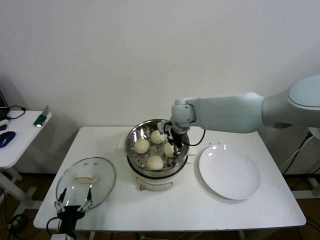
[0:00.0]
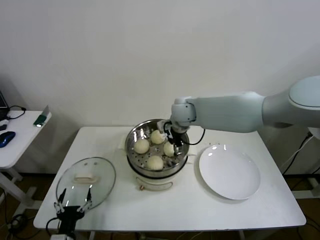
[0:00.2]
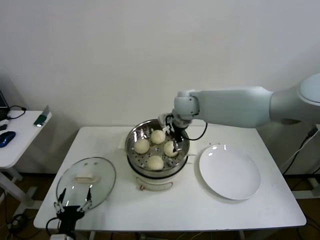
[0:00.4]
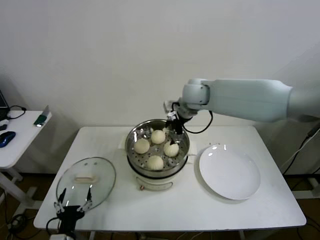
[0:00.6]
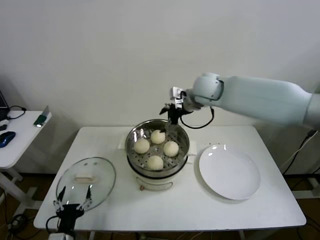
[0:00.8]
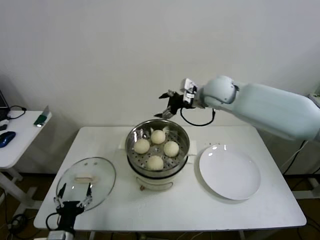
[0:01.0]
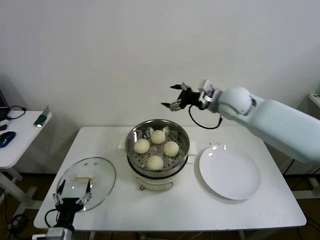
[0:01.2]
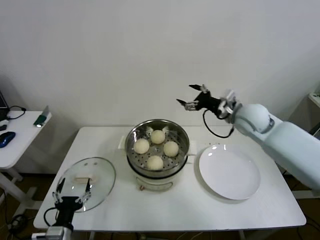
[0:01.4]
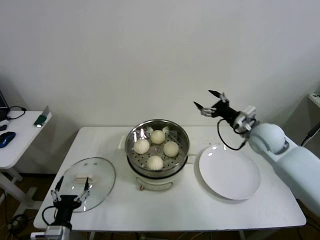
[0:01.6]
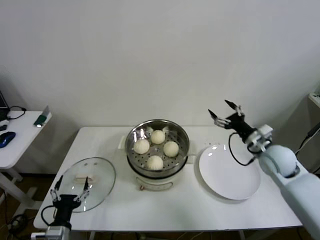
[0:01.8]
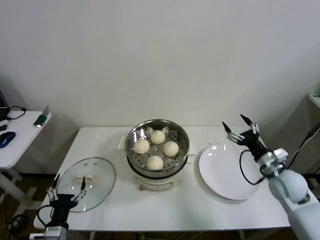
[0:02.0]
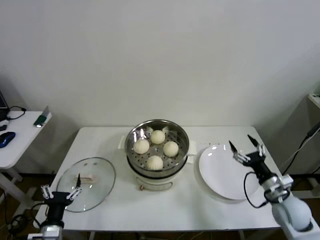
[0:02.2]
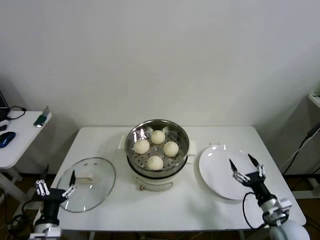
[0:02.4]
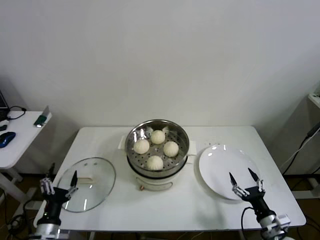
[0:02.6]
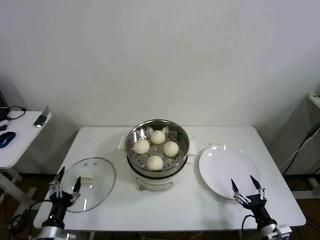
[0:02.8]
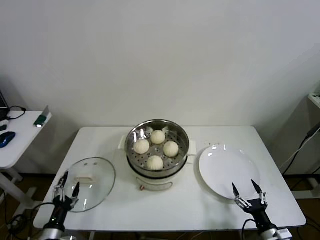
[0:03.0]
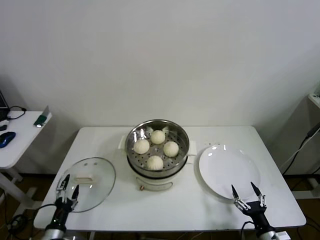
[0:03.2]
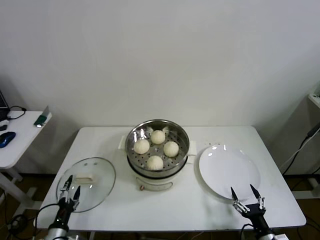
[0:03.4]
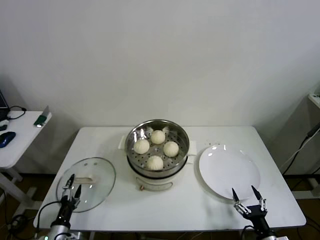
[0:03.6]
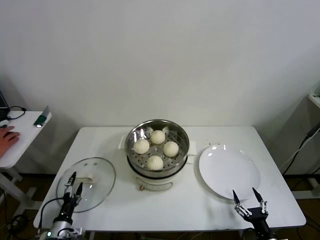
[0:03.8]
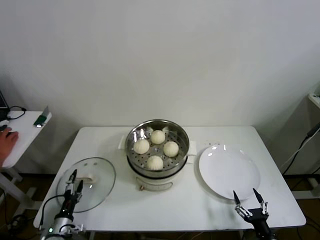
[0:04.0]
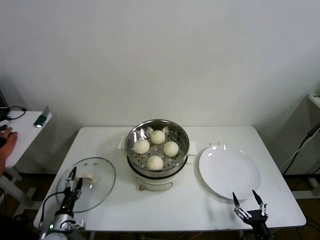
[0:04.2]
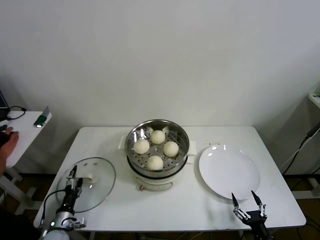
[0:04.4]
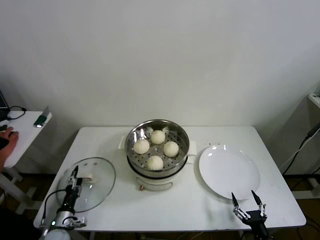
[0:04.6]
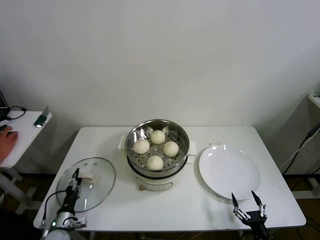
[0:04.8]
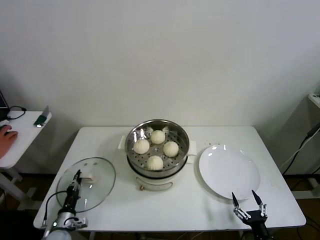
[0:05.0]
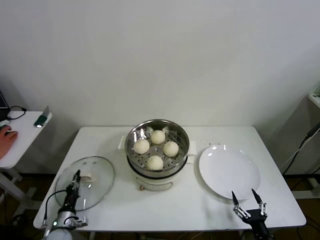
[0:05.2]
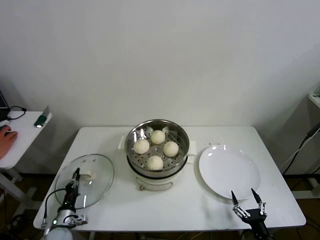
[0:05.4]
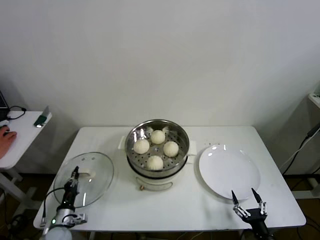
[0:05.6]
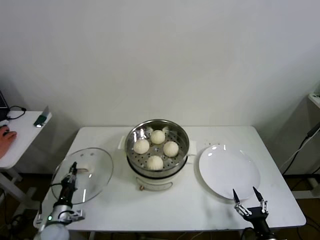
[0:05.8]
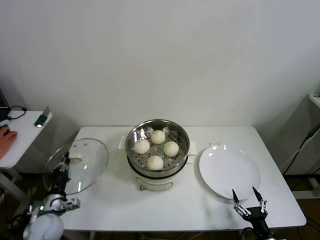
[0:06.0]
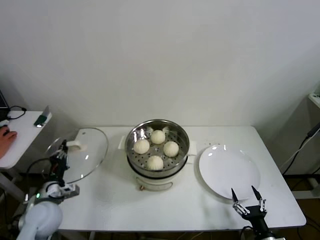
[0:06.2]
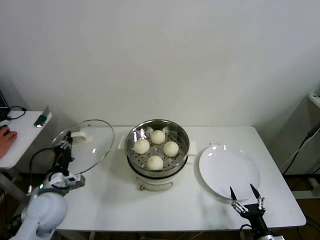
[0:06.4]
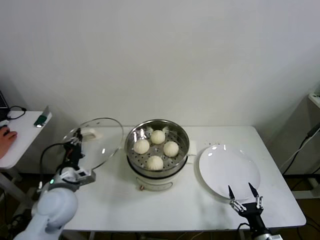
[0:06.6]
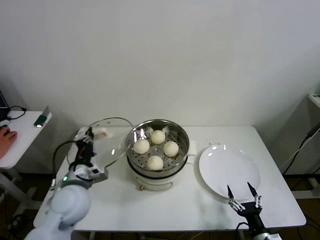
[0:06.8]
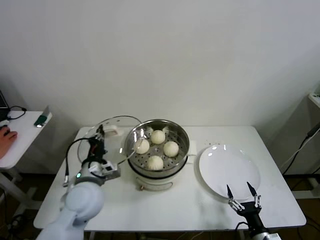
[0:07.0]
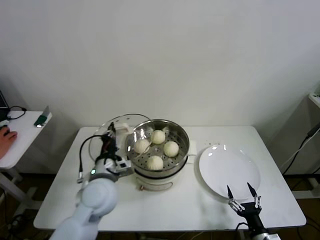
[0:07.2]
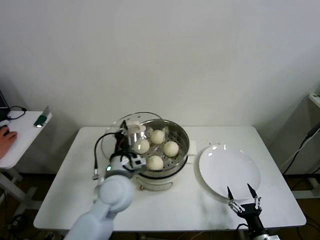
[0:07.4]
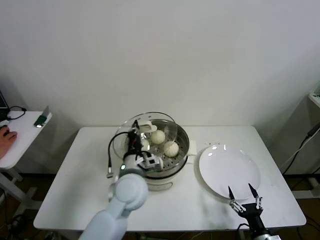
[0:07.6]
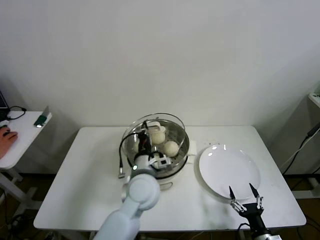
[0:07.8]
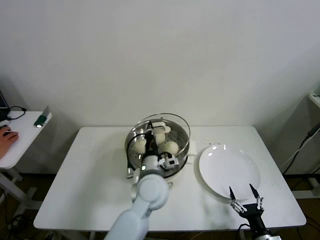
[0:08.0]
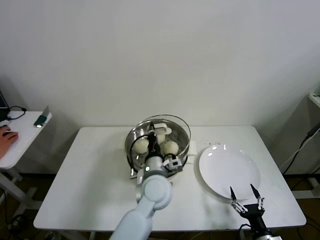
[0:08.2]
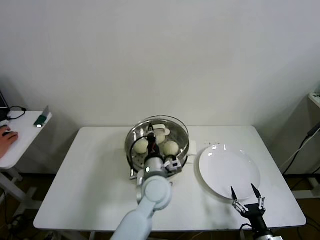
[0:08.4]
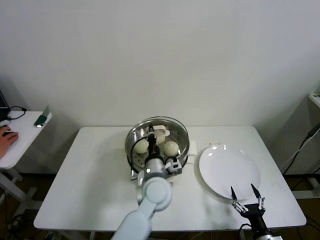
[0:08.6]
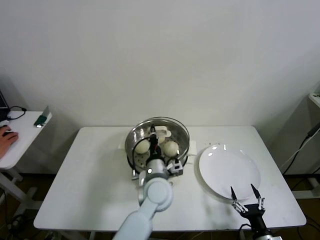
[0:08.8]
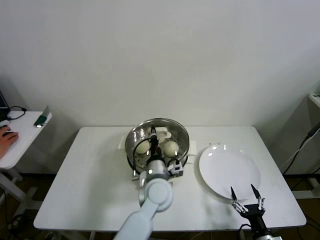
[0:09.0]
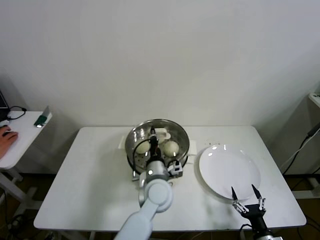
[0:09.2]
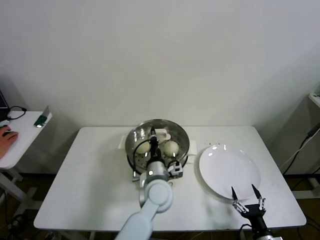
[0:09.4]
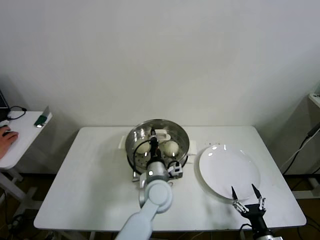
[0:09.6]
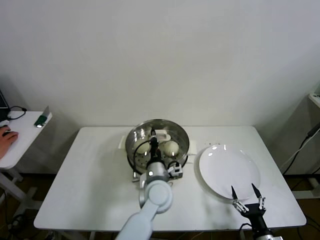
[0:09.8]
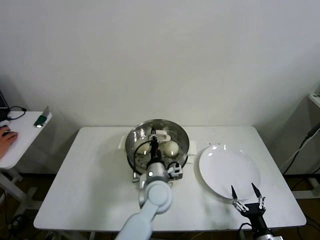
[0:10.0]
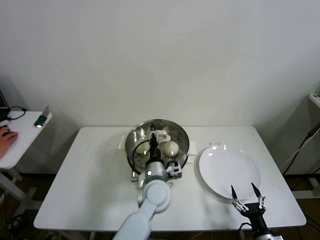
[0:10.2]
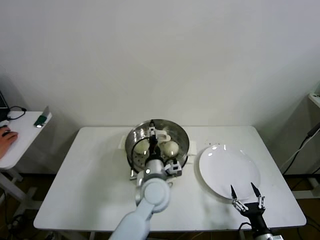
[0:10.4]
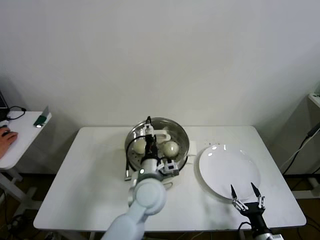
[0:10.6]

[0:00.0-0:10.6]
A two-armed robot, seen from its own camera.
Step, 0:00.4 to 0:05.2: Grasp the pot lid with left gripper.
Step, 0:05.4 to 0:10.2: Place the pot lid on the steamer with left gripper.
0:00.0 to 0:01.6: The right gripper shifts about 25 cm to the right, and opens up.
0:01.6 to 0:03.0: The right gripper shifts approximately 40 cm backward and downward; the left gripper moves to the left, approximately 5 cm.
0:03.0 to 0:04.6: The left gripper shifts some 10 cm forward and downward.
0:04.6 to 0:06.0: The left gripper shifts about 10 cm upward, and closes up.
0:06.0 to 0:07.6: The left gripper travels to the right and upward by approximately 30 cm.
0:07.6 to 0:09.0: The left gripper heads to the right and downward, covering roughly 10 cm.
0:09.0 to 0:10.6: The left gripper opens.

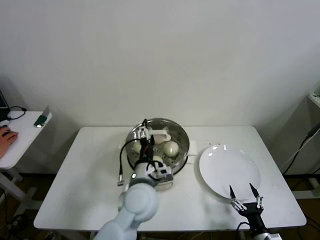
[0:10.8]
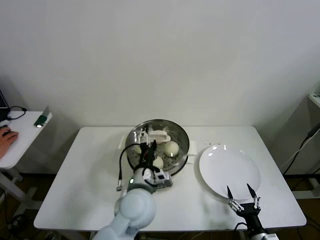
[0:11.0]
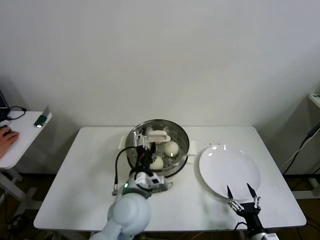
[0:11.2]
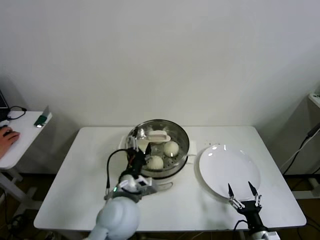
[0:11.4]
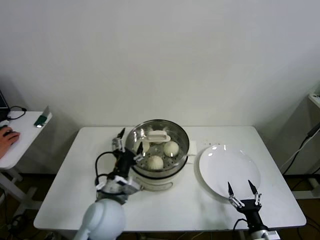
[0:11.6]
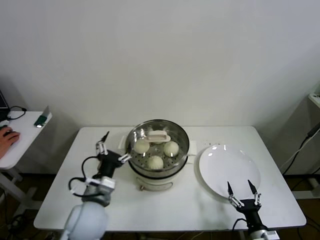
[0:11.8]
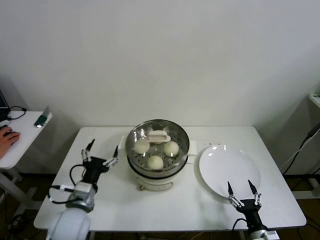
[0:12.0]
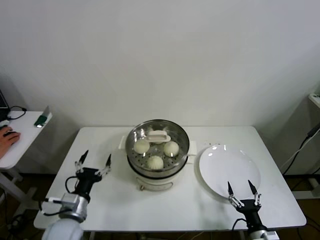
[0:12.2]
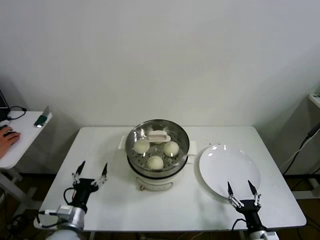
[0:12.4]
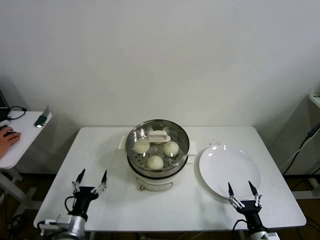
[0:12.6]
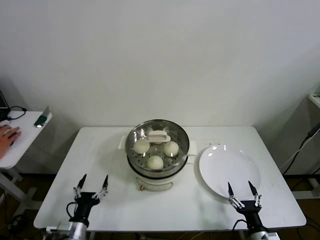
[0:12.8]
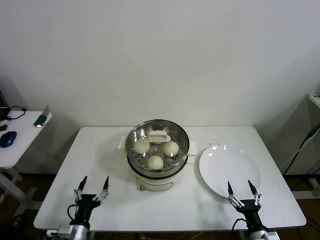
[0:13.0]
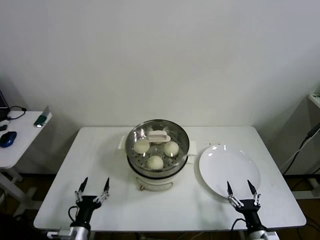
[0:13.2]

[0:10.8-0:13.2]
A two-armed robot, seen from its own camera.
0:10.8 to 0:12.0: The left gripper goes some 15 cm to the left.
0:12.0 to 0:13.2: The left gripper travels downward and backward by some 15 cm.

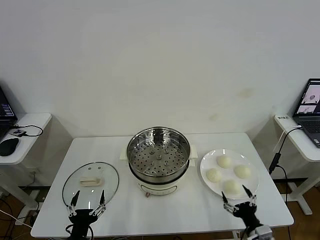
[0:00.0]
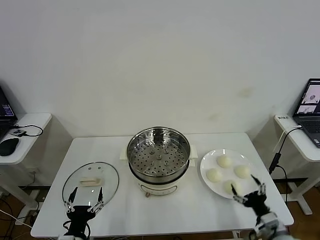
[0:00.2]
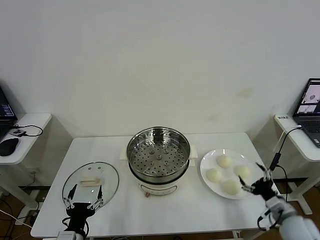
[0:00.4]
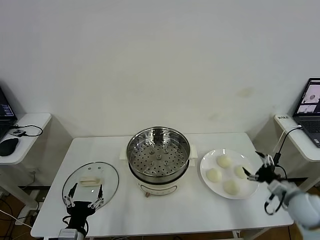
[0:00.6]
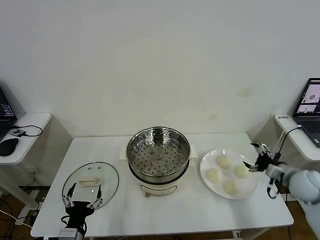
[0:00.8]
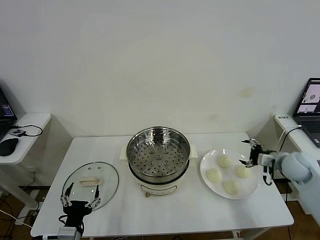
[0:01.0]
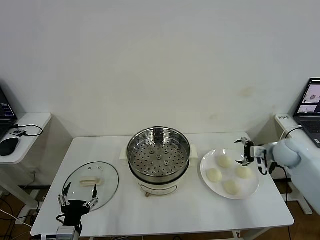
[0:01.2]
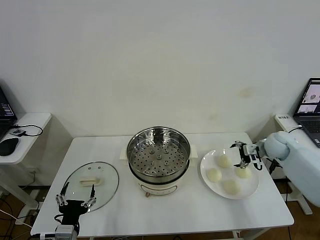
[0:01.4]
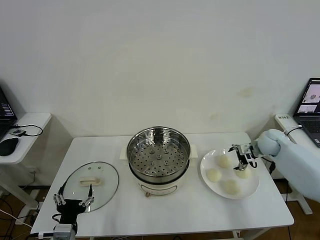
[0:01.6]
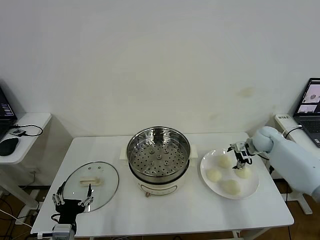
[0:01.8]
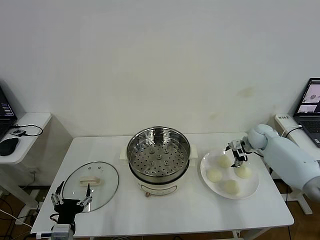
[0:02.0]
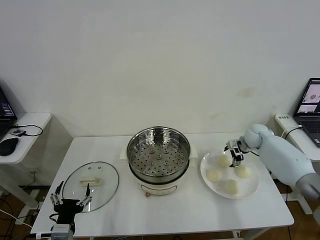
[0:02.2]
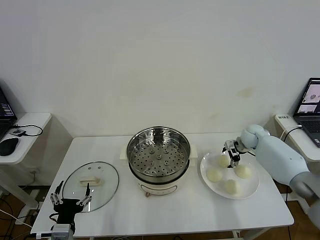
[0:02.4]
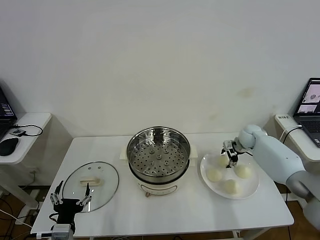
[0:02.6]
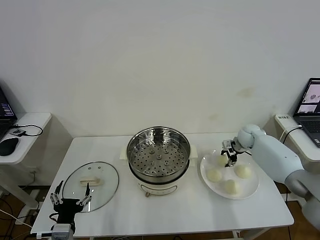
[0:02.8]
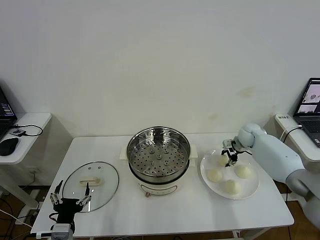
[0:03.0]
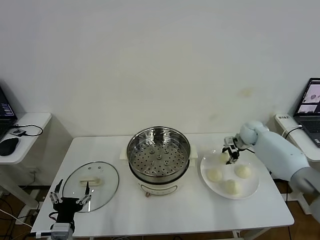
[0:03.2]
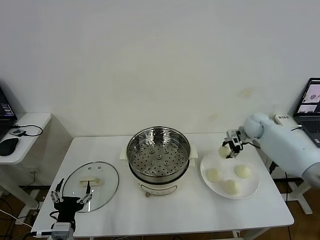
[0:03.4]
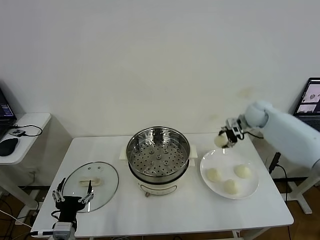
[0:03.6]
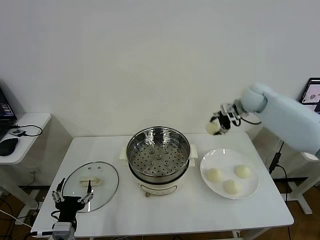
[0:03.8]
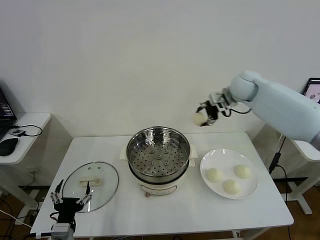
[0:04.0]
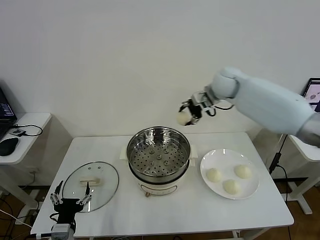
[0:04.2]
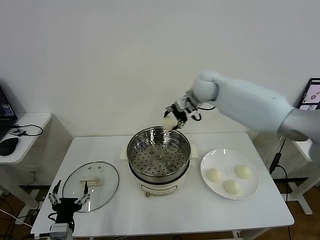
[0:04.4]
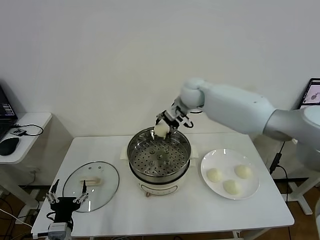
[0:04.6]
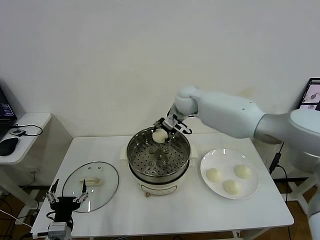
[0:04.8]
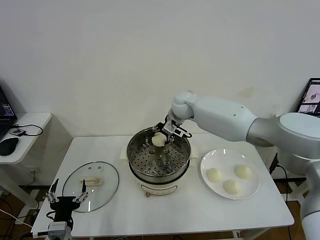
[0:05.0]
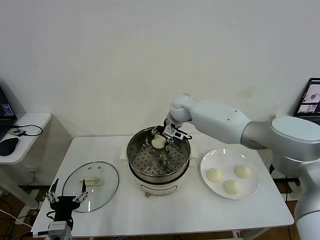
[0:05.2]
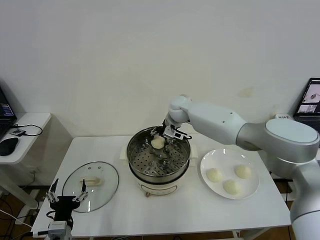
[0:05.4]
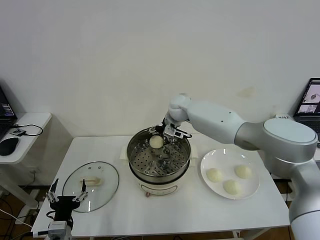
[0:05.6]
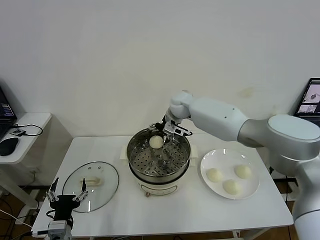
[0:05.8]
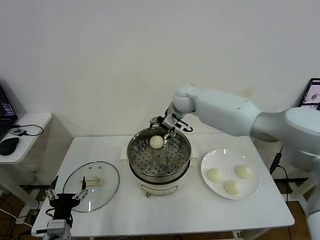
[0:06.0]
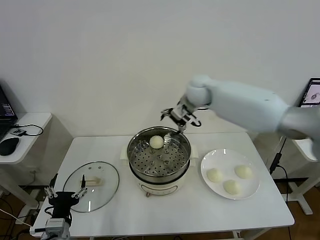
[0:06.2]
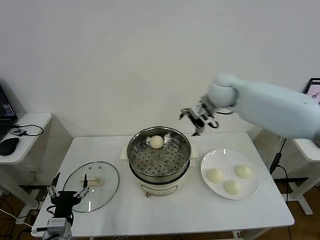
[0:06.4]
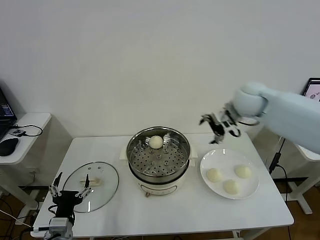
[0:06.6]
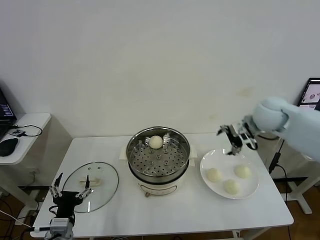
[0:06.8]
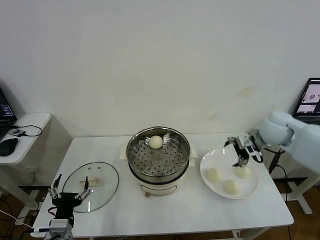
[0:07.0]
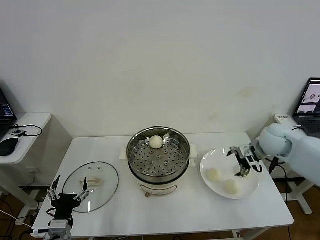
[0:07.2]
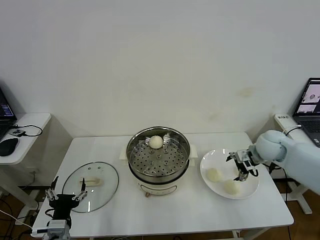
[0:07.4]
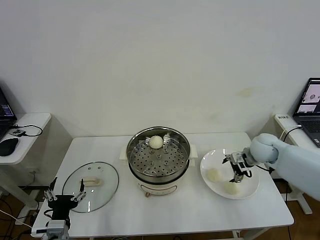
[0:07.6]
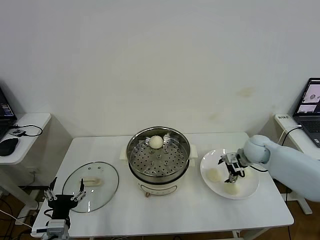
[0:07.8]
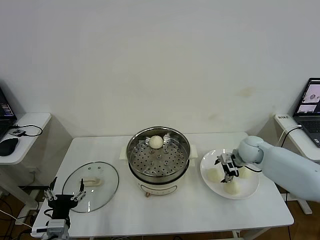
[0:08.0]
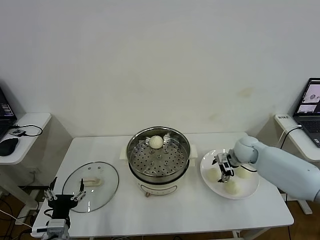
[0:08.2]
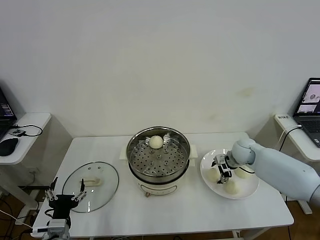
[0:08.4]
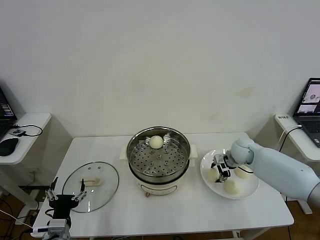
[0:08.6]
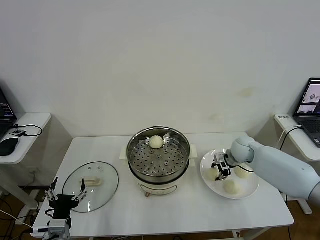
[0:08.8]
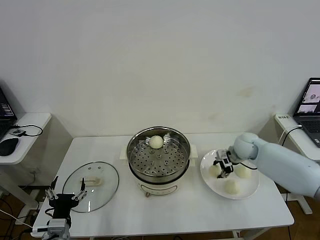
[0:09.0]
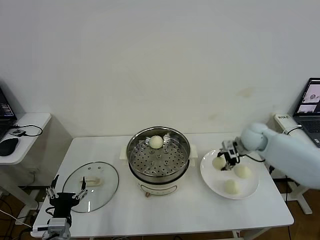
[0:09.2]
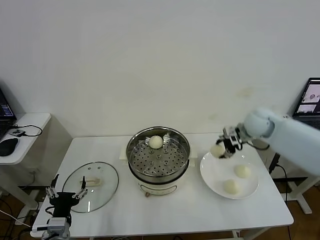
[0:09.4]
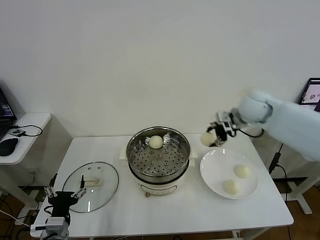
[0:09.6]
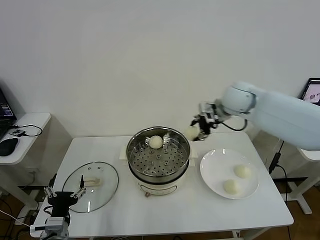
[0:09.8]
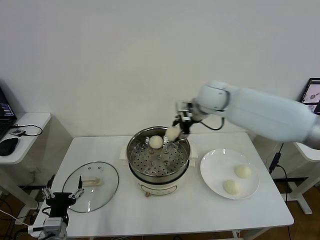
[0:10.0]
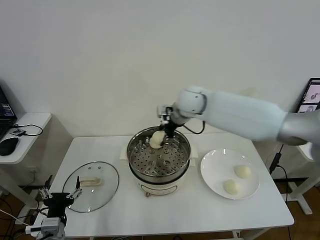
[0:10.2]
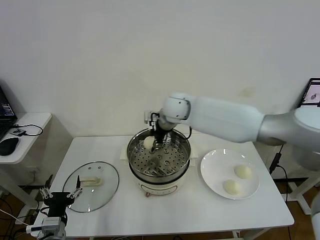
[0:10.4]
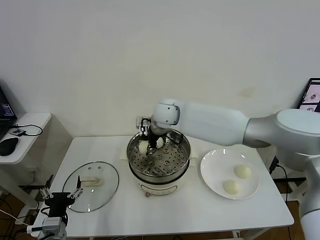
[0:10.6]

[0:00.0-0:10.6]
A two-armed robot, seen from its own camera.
Step, 0:00.0 to 0:03.0: Grasp the baozi in the plate with right gripper.
Step, 0:03.2 to 0:05.6: Place the baozi on the steamer with right gripper.
Step, 0:05.8 to 0:08.8: Grasp the baozi in the plate with right gripper.
0:01.6 to 0:03.0: The right gripper ends up about 5 cm from where it was, and closes its fingers.
0:03.0 to 0:04.6: The right gripper goes approximately 30 cm to the left and upward.
0:04.6 to 0:06.0: The right gripper ends up about 5 cm from where it was, and opens.
0:06.0 to 0:07.6: The right gripper moves to the right, downward and backward, some 30 cm.
0:07.6 to 0:09.0: The right gripper closes its fingers.
0:09.0 to 0:10.6: The right gripper is displaced to the left by some 35 cm.
